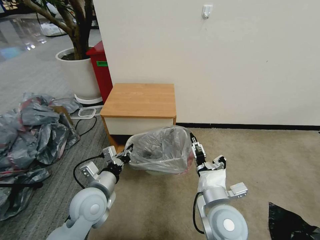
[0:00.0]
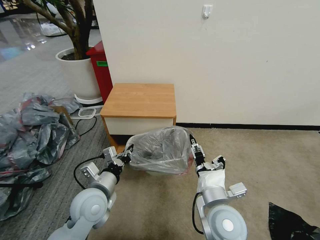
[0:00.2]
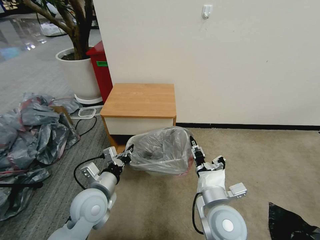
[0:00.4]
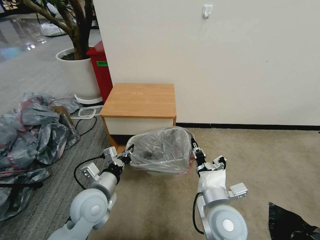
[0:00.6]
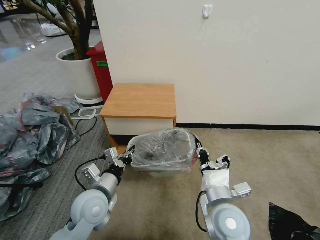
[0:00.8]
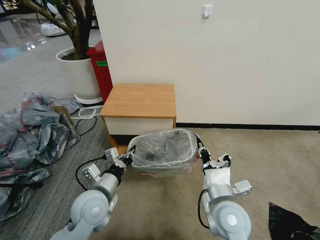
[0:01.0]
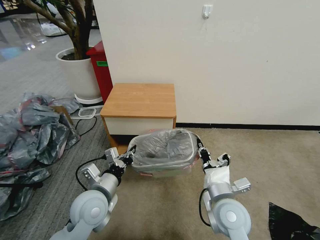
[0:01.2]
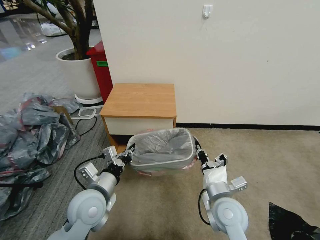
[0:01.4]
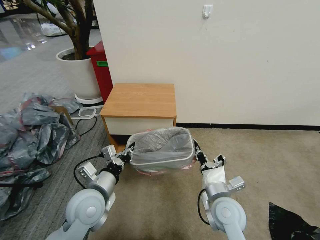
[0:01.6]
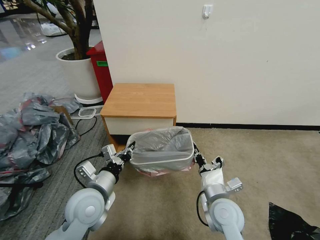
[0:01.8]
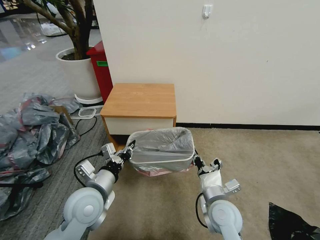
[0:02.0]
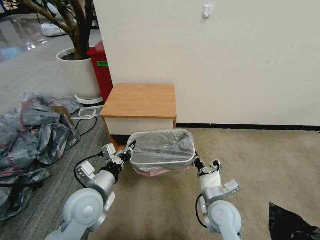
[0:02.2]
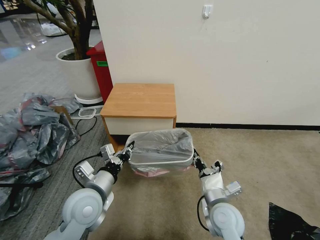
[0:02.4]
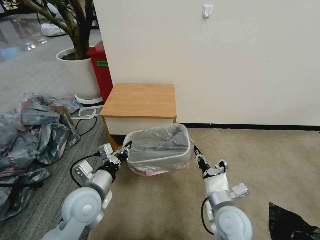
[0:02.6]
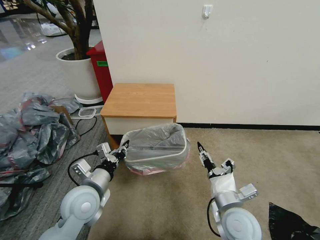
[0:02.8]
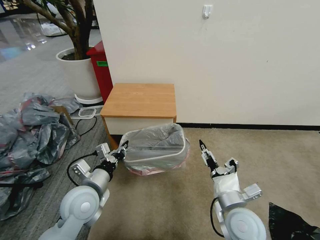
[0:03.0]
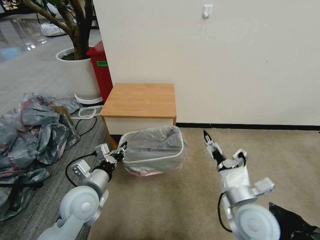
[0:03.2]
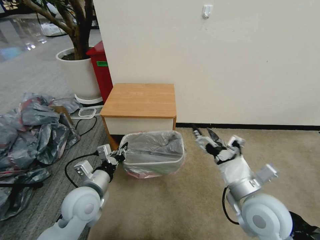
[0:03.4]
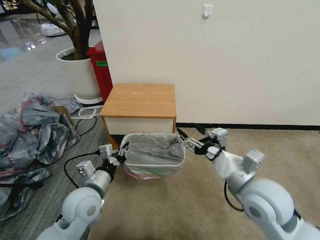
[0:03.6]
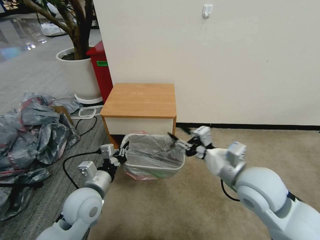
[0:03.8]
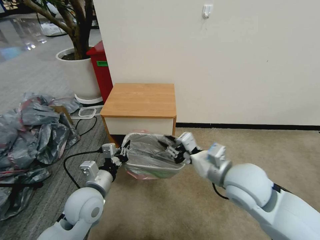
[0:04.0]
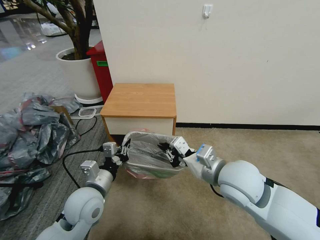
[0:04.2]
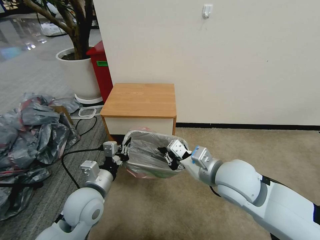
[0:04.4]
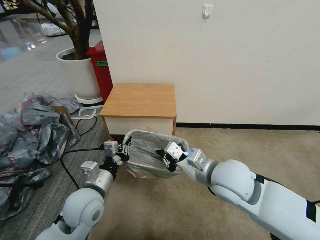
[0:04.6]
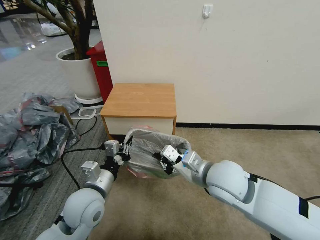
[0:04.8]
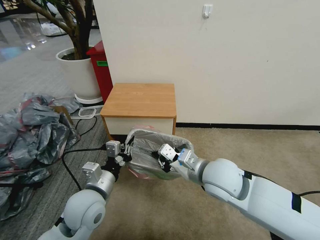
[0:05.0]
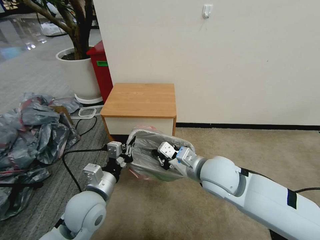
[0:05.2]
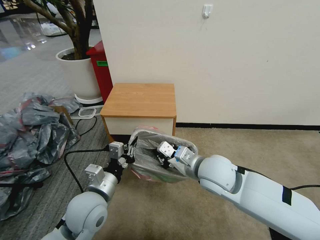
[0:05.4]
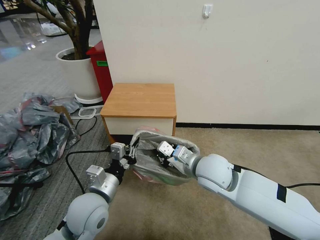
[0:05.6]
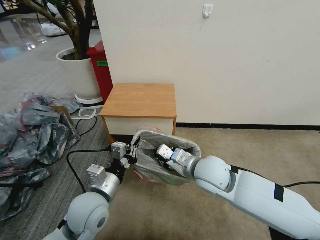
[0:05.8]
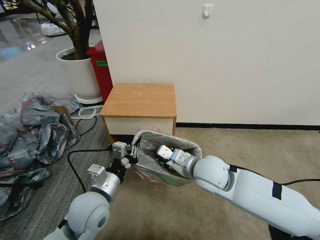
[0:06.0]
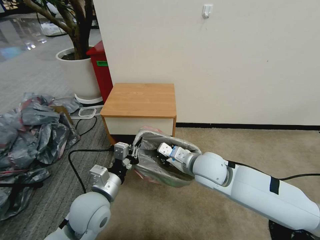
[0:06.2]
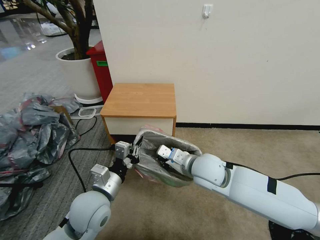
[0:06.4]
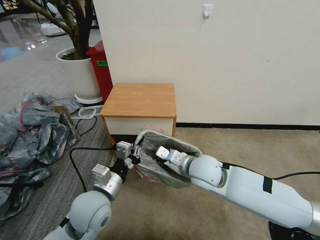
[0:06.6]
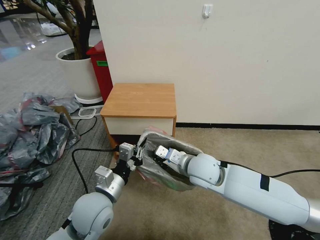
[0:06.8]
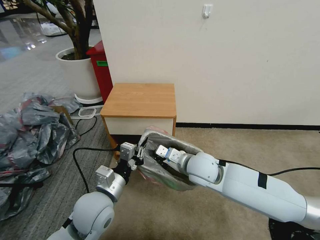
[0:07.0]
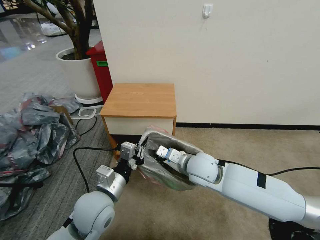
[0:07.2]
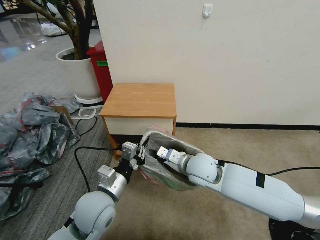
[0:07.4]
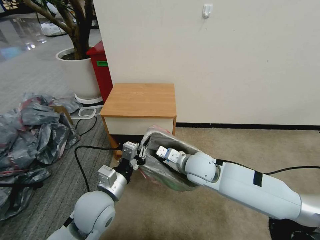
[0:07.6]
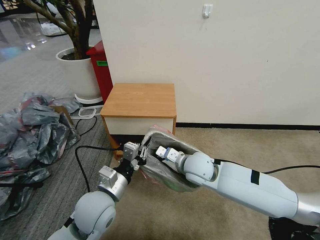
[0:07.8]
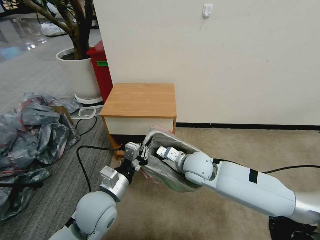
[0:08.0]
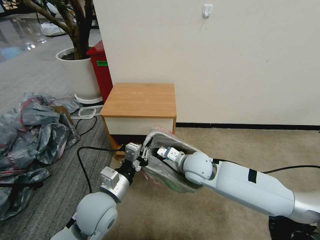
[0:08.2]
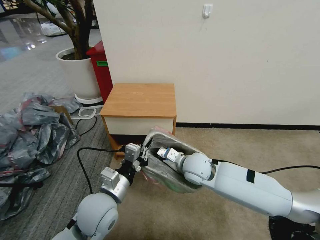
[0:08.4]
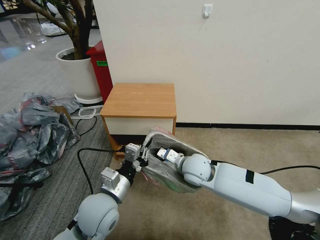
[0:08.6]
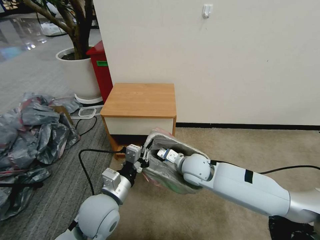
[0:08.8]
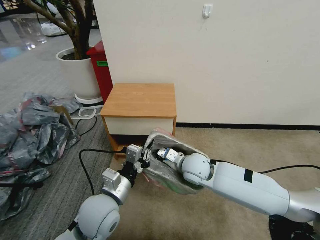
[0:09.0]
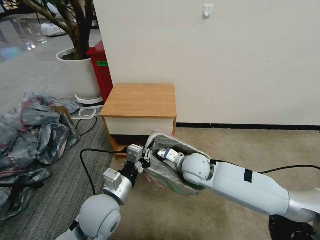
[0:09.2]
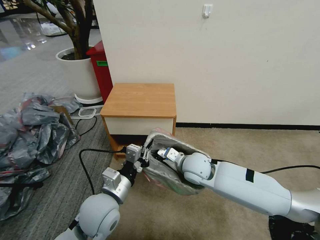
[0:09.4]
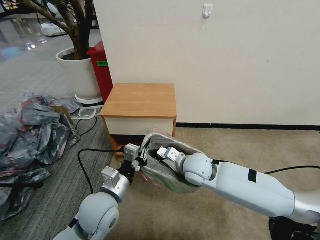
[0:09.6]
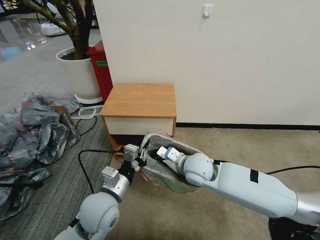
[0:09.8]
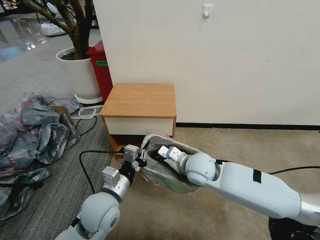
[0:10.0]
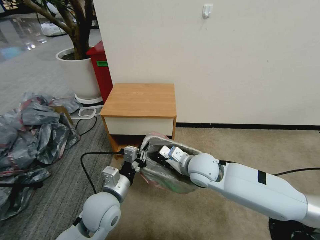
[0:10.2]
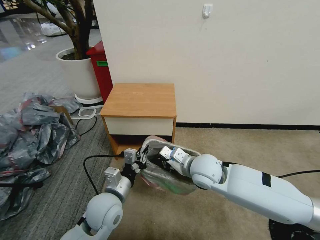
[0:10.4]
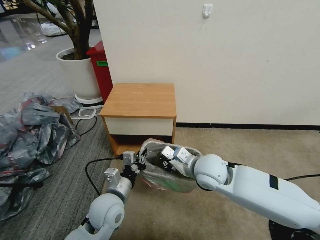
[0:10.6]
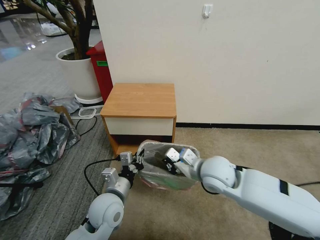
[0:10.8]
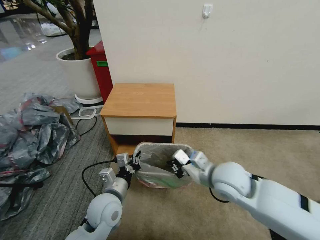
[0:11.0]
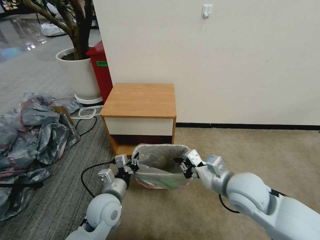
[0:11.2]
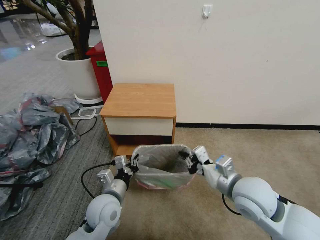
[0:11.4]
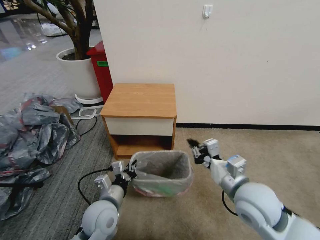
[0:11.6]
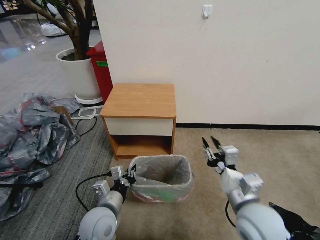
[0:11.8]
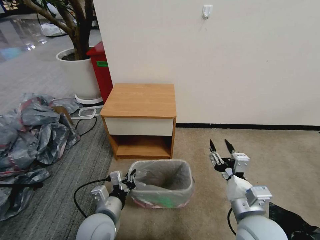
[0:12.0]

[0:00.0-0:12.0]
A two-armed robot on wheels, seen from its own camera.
Task of the whole recording: Pick up the garbage bag from the table and place it over the trash can.
0:00.0 to 0:01.6: The right gripper travels downward by about 5 cm, and closes.
0:01.6 to 0:03.0: The right gripper shifts by some 5 cm, and opens its fingers.
0:03.0 to 0:04.4: The right gripper is displaced upward and forward by about 15 cm, and closes its fingers.
0:04.4 to 0:06.0: The right gripper is displaced downward by approximately 5 cm.
0:06.0 to 0:07.6: The right gripper shifts by some 5 cm.
0:07.6 to 0:09.0: The grippers stay close to where they were, moving slightly.
0:09.0 to 0:10.4: The right gripper moves some 5 cm.
0:10.4 to 0:12.0: The left gripper moves backward, approximately 5 cm; the right gripper moves backward and to the right, about 20 cm, and opens up.

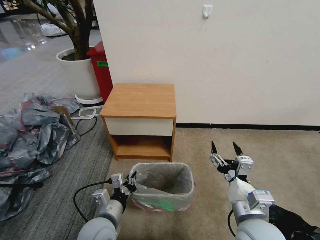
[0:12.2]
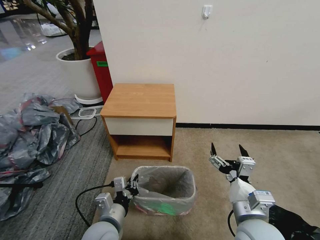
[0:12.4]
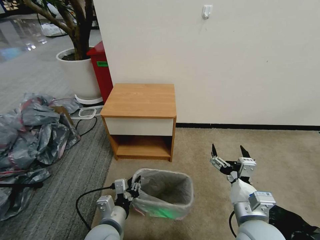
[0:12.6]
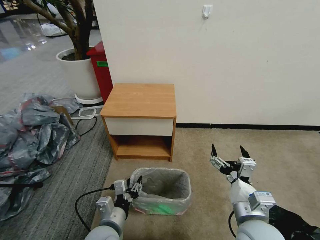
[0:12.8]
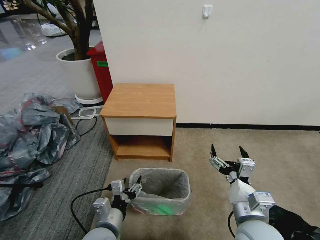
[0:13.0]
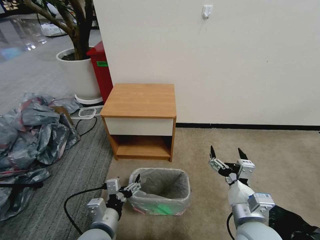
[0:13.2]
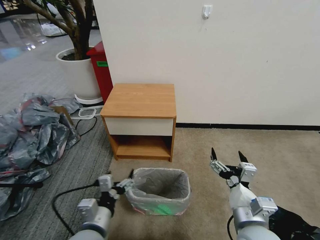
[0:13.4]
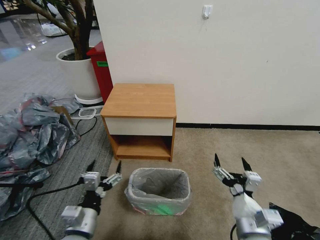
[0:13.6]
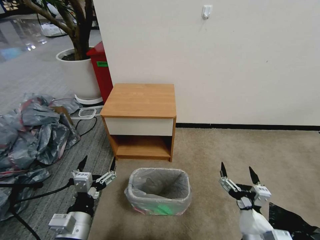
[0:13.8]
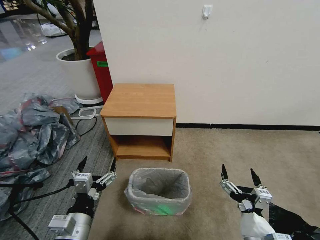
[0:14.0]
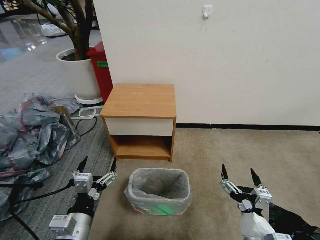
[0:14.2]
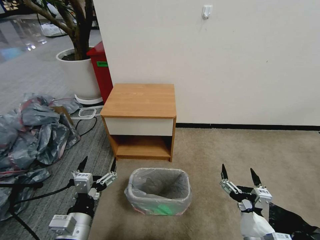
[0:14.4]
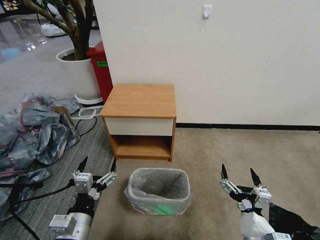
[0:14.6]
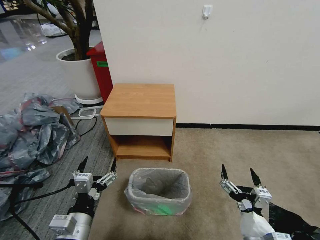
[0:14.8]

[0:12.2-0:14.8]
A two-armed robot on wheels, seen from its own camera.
Task of the whole recording: Pick up the garbage bag from the table and place it over the trash can.
0:12.2 to 0:13.4: The left gripper opens its fingers.
0:13.4 to 0:14.8: The right gripper goes about 5 cm backward.

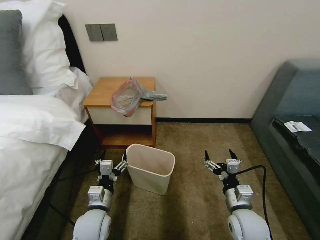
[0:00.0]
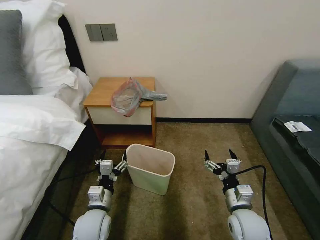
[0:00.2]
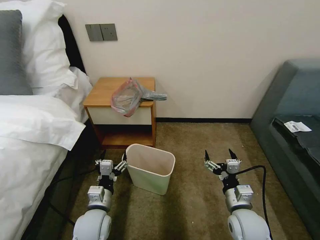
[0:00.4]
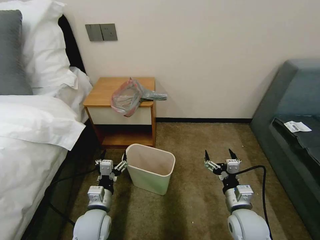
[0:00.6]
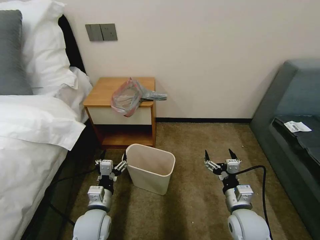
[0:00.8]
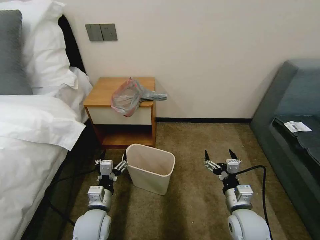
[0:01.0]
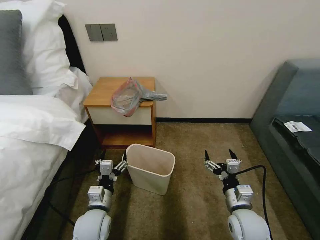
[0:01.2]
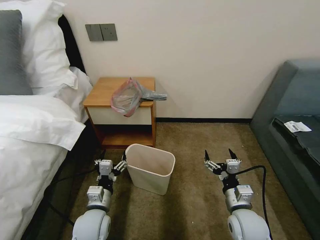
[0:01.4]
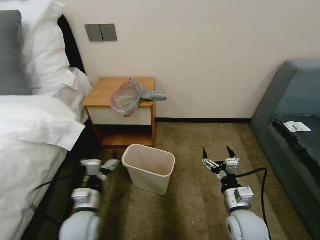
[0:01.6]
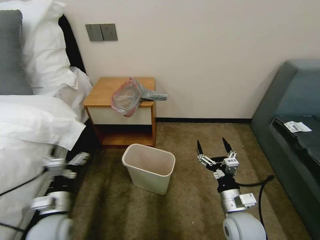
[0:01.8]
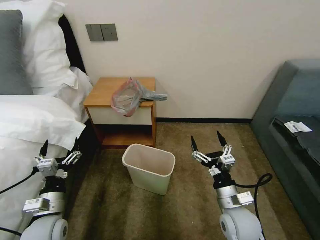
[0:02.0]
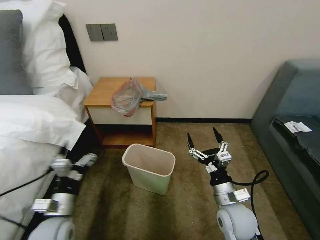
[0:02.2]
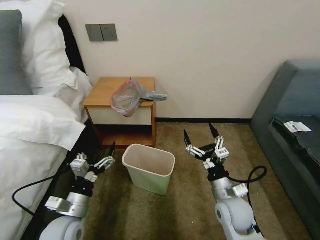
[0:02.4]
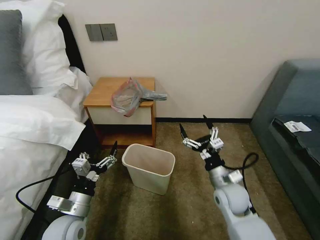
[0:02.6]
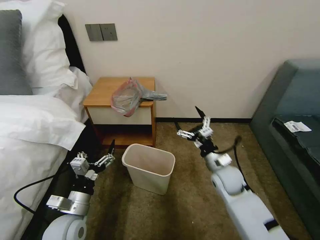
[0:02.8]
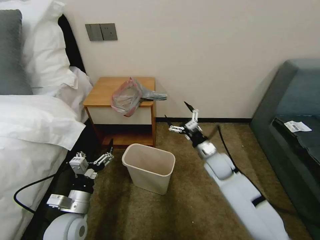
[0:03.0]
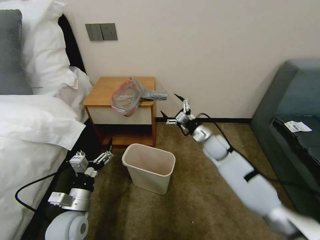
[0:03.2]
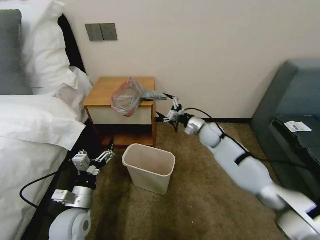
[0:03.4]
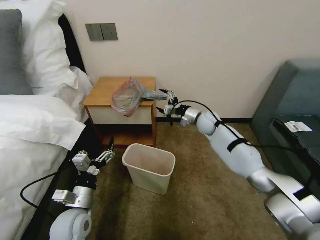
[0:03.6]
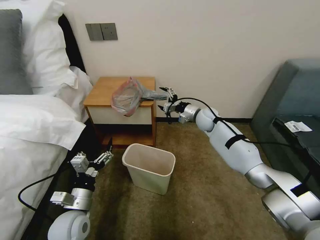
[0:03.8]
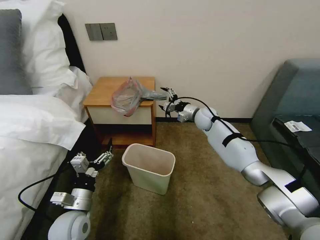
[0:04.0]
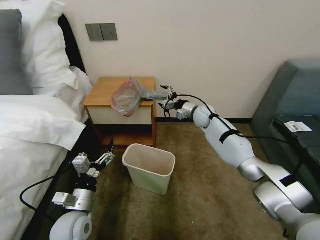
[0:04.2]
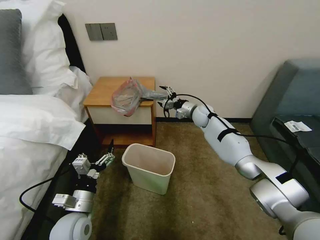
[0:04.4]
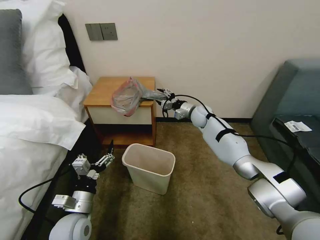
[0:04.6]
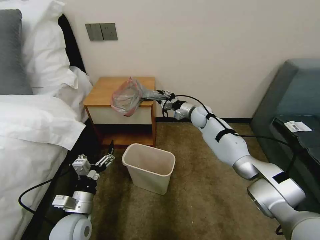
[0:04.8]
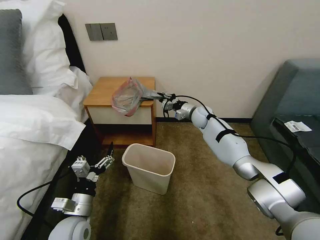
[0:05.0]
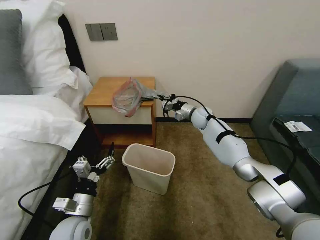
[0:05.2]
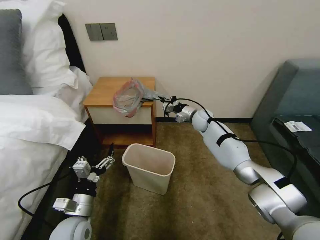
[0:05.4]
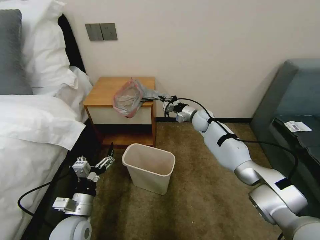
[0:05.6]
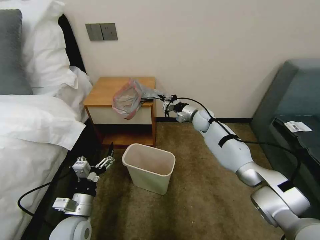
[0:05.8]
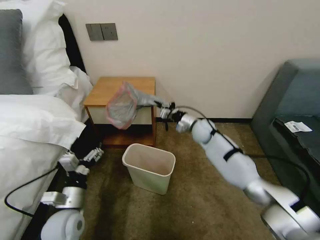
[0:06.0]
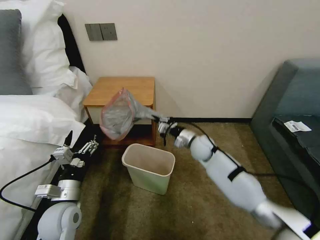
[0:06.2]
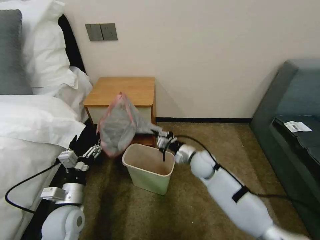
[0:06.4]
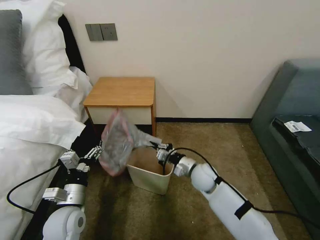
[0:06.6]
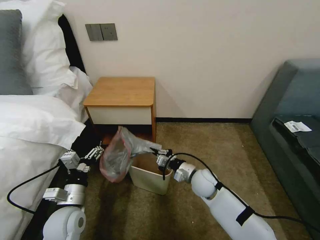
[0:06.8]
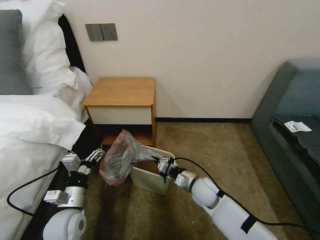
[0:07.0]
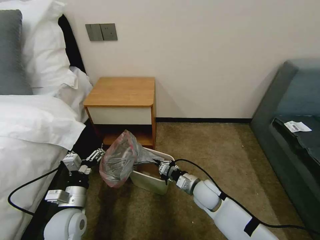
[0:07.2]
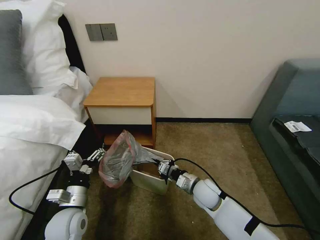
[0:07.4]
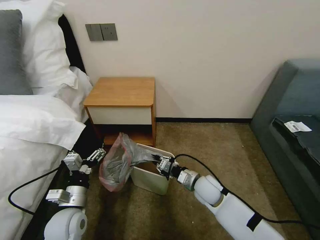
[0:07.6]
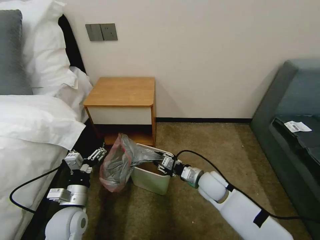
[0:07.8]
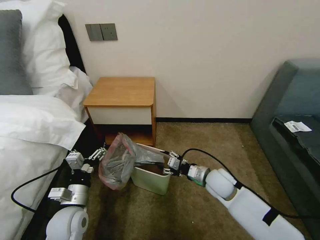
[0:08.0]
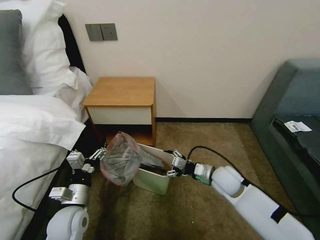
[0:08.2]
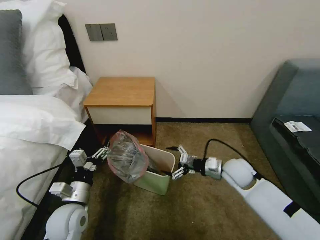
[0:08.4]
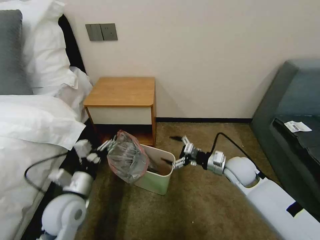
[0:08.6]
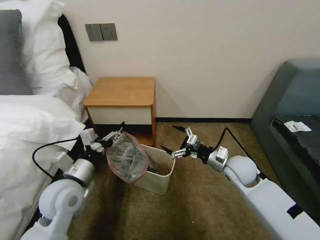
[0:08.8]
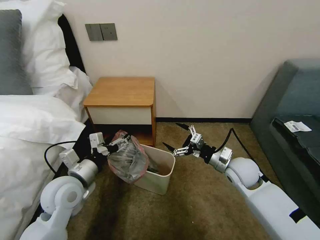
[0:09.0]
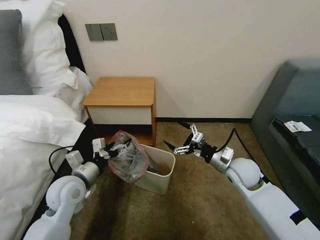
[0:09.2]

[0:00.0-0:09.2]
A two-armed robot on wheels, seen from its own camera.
Task of the whole recording: Pick up the garbage bag from the table and place it over the trash can.
0:01.6 to 0:03.0: The left gripper travels to the left and back again, roughly 10 cm each way, while the right gripper heads forward, covering approximately 20 cm.
0:03.0 to 0:04.6: The right gripper heads forward, covering about 20 cm.
0:04.6 to 0:06.2: The right gripper moves backward and downward, some 15 cm, and closes up.
0:06.2 to 0:07.6: The right gripper moves backward, roughly 15 cm.
0:07.6 to 0:09.2: The right gripper goes approximately 15 cm to the right and upward, and opens up, while the left gripper heads forward and upward, covering some 10 cm.
